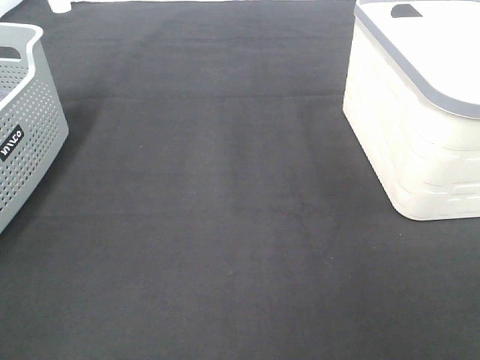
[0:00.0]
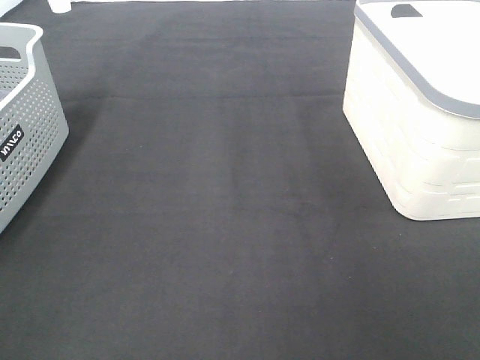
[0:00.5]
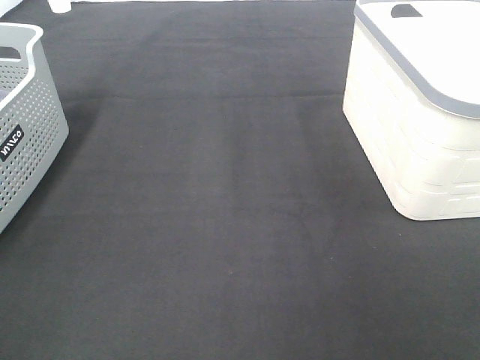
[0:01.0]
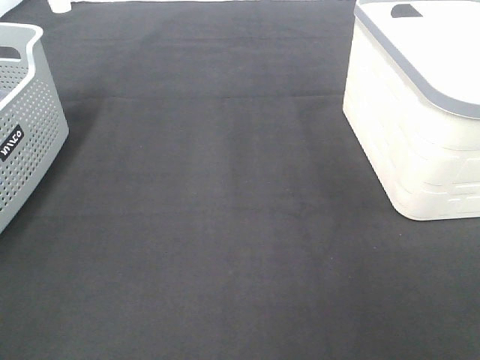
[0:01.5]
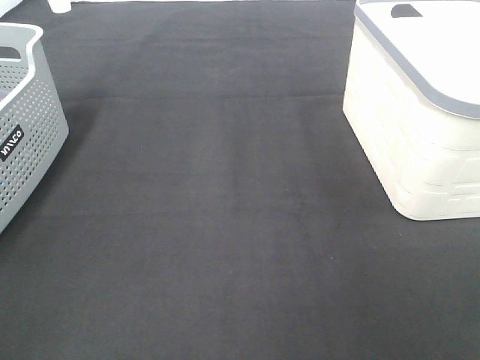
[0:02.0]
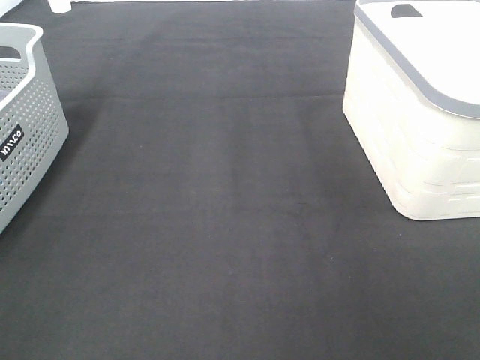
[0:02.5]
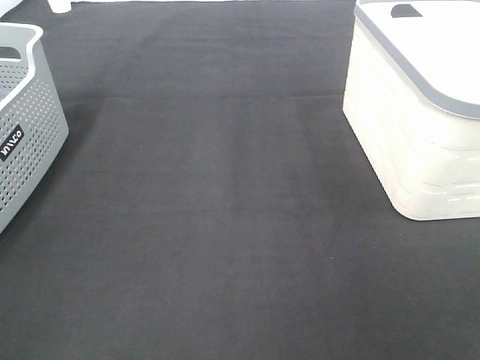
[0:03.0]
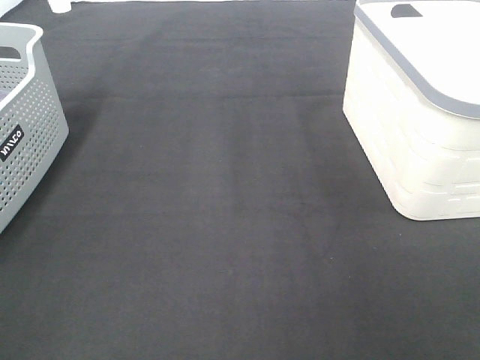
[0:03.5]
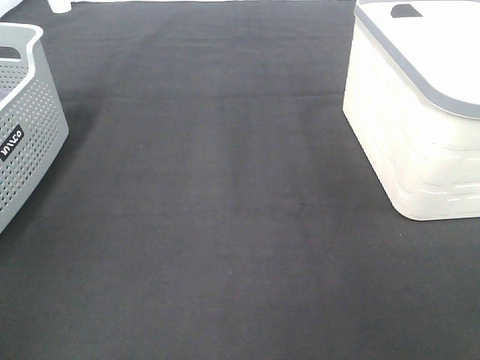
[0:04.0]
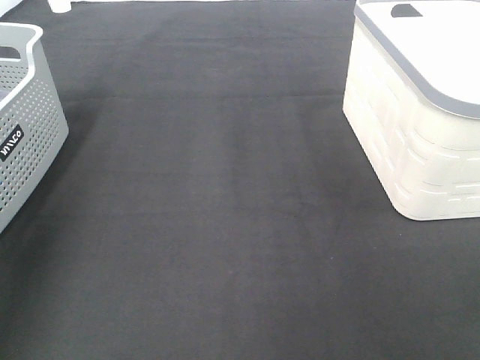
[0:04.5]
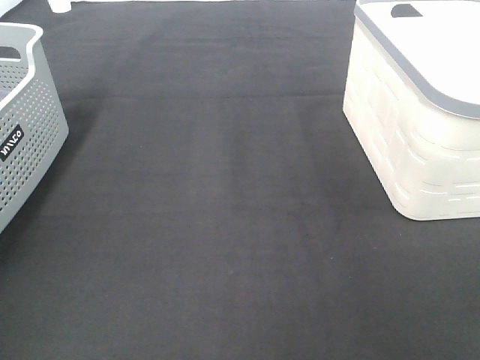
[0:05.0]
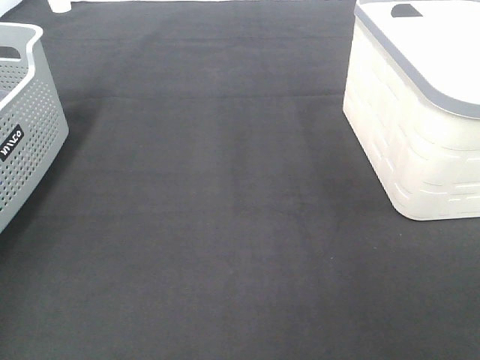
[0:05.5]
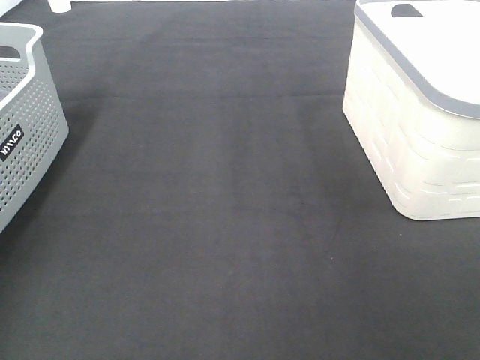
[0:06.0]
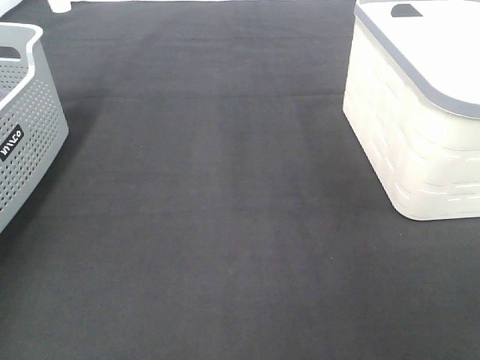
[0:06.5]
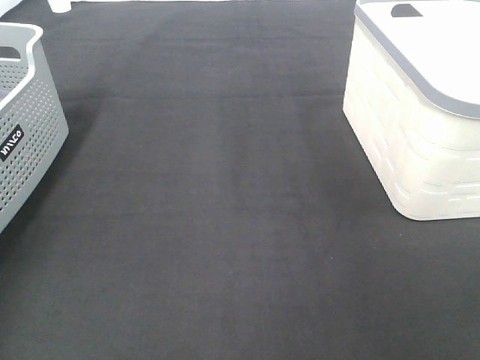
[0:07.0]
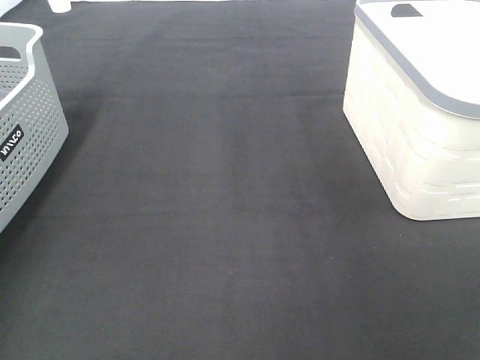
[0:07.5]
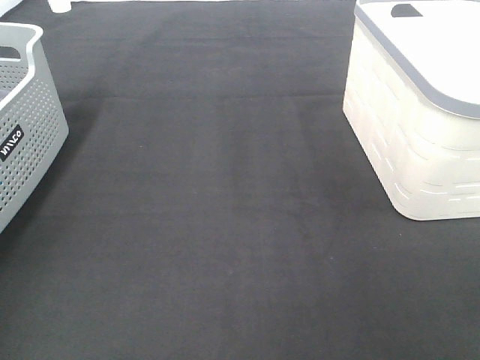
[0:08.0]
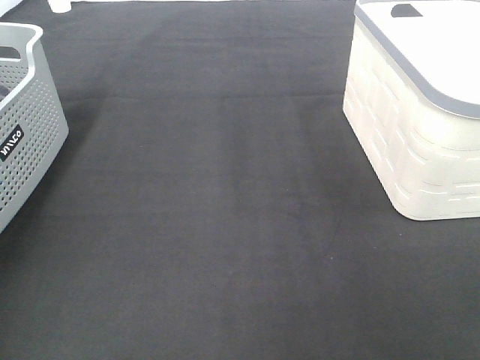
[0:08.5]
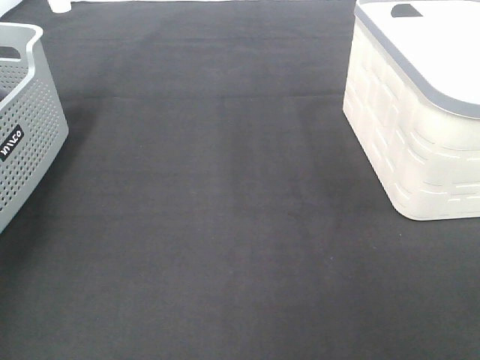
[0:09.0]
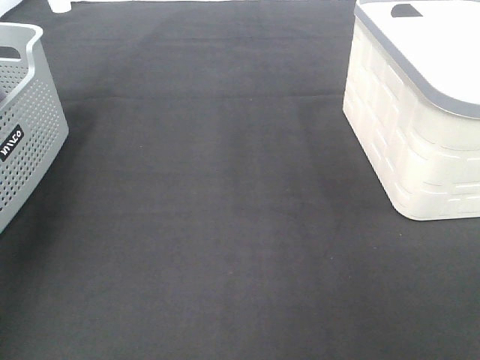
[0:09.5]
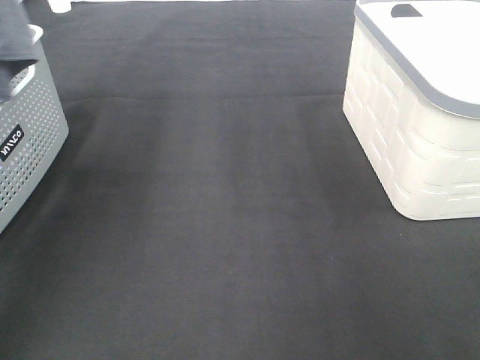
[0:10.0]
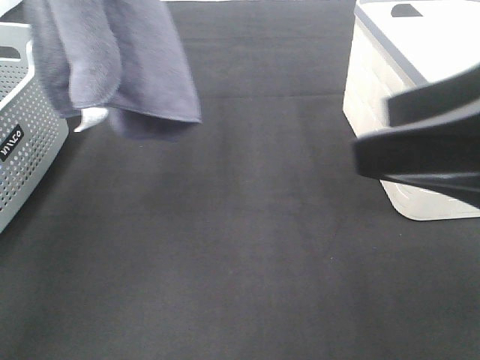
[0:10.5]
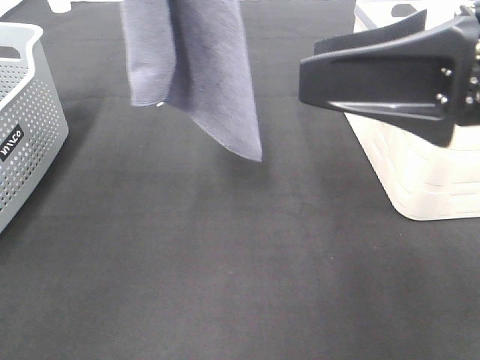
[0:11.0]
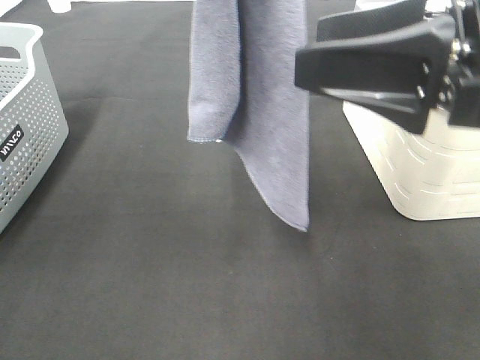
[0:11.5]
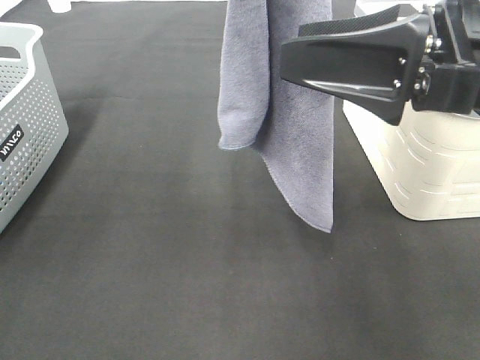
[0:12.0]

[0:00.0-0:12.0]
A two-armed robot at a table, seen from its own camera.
Task of the whole recording: Remove the towel and place it.
0:00.0 to 0:02.0: Both grippers stay put.
0:08.0 to 0:10.0: The left gripper heads upward, to the right and backward, covering roughly 30 cm.
0:10.0 to 0:12.0: The right gripper goes roughly 20 cm forward and to the left. The left gripper goes about 20 cm to the right.

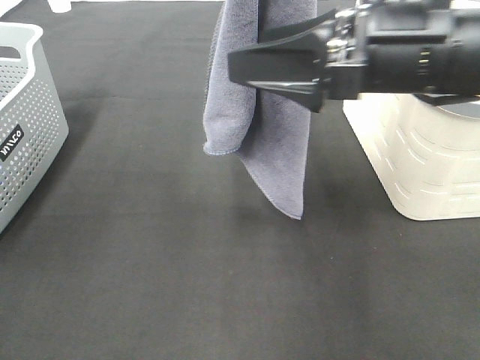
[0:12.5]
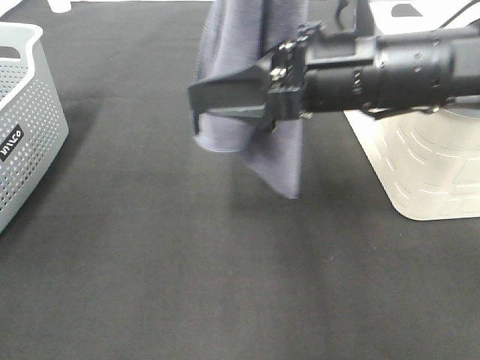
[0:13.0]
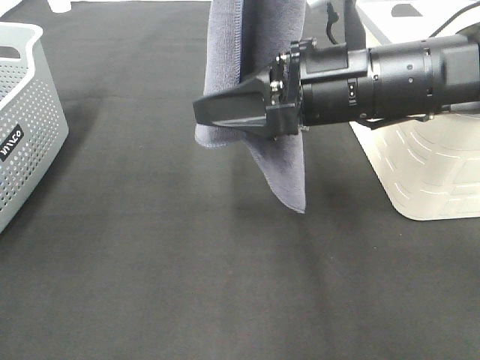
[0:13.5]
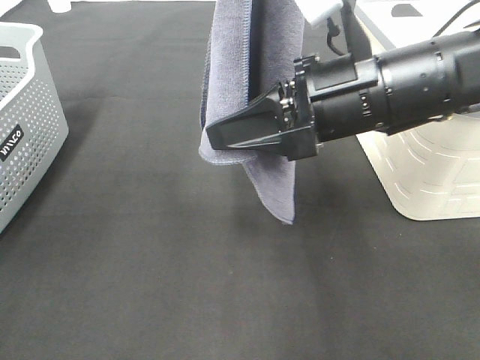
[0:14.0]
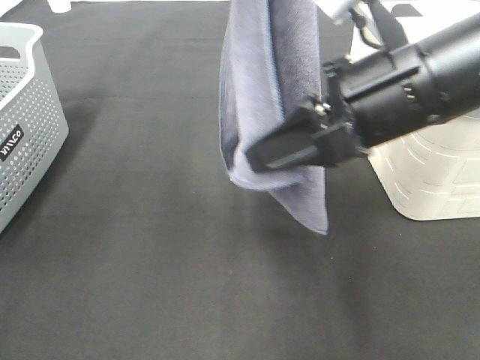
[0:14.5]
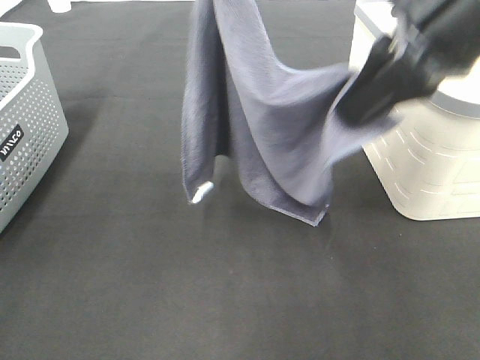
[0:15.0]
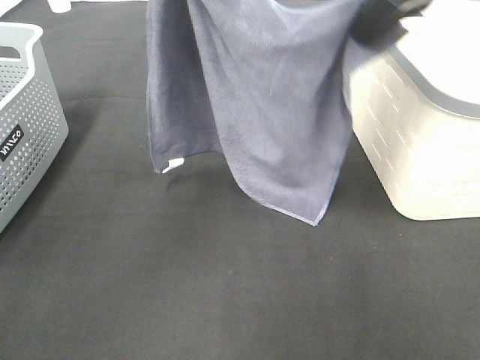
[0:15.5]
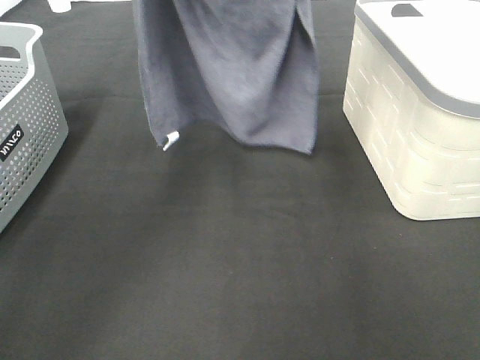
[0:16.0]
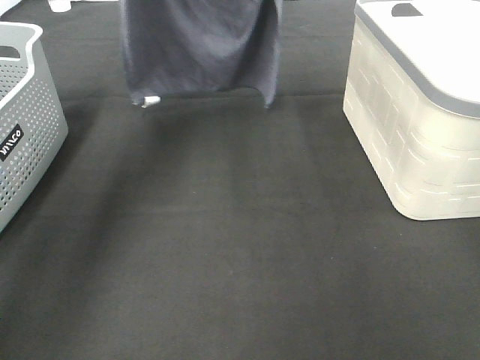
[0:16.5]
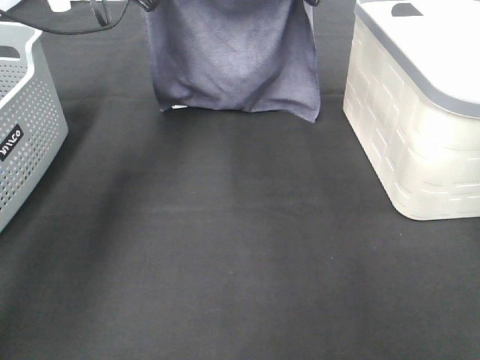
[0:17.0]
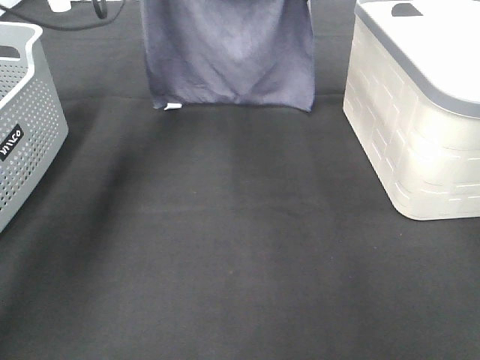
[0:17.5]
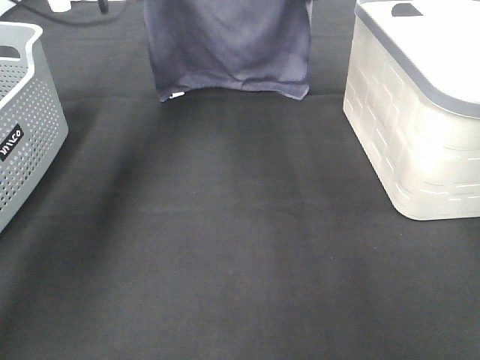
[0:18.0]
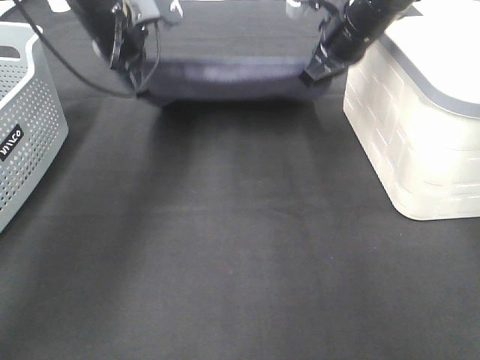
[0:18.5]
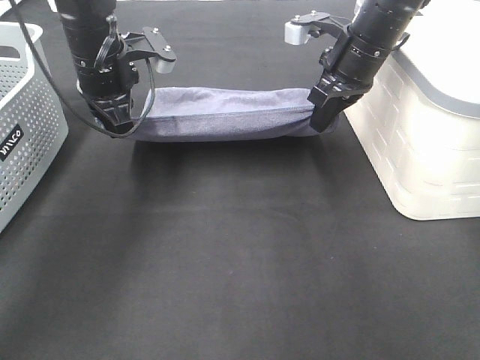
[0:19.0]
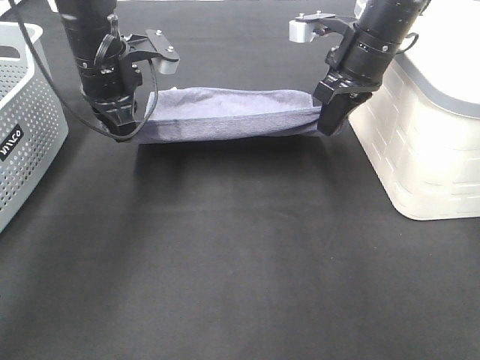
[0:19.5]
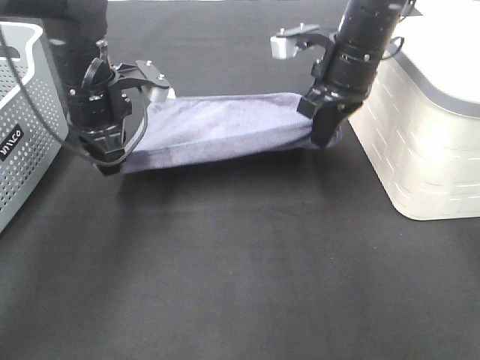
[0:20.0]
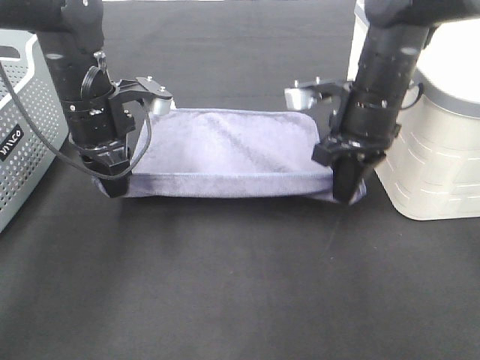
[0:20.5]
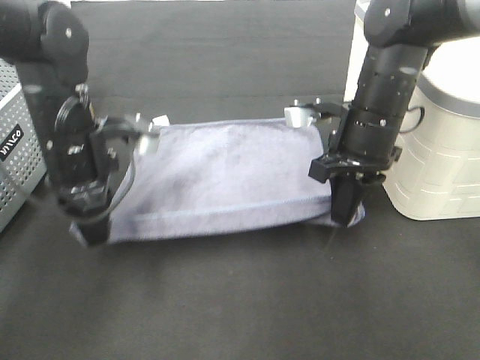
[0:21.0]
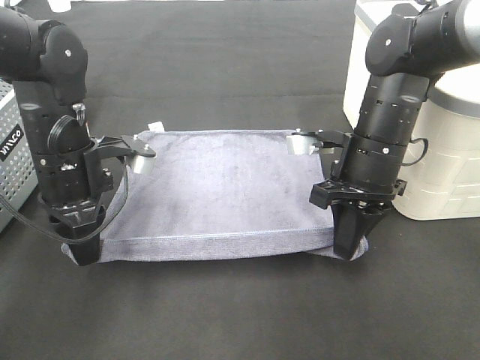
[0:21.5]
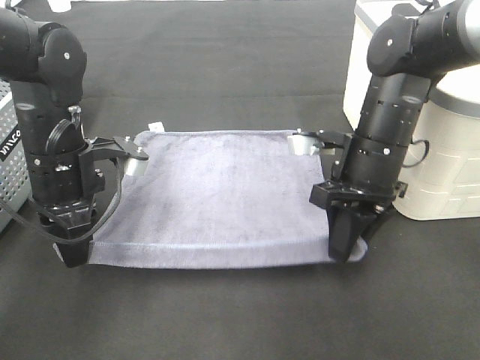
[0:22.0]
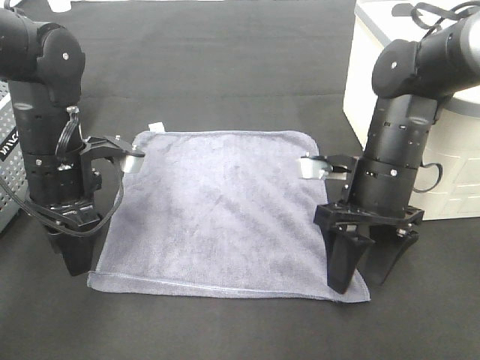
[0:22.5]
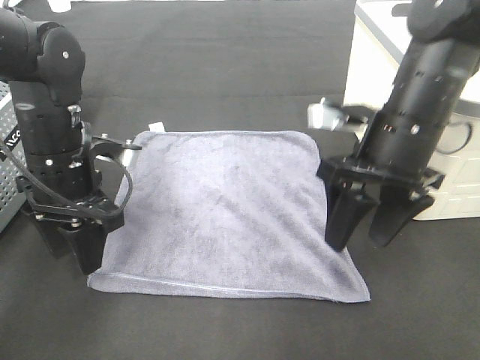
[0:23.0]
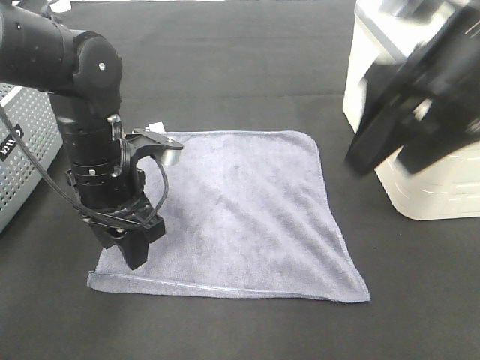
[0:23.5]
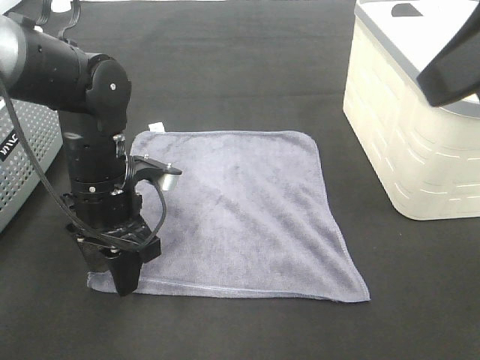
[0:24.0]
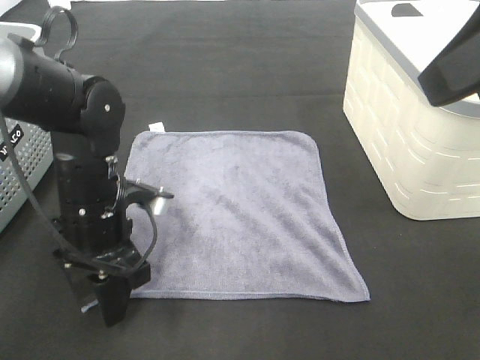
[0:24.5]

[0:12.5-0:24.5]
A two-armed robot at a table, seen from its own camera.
Task of the whole recording: Remove the towel and place it.
Step, 0:13.0 to 0:17.5: Left hand: spread the grey towel flat on the table.
Step, 0:13.0 to 0:17.5: Right hand: spread the grey towel flat on the table.
Step, 0:18.0 to 0:20.0: Left hand:adjust the gray towel.
0:12.5 to 0:14.5: The right gripper closes.
0:14.5 to 0:16.5: The right gripper is displaced forward by approximately 25 cm, while the left gripper is displaced forward, downward and to the left by some 20 cm.
0:16.5 to 0:18.5: Both grippers move downward, roughly 10 cm.
0:18.5 to 0:20.5: Both grippers move backward, about 10 cm.
0:20.5 to 0:22.5: The two grippers go roughly 5 cm backward. The right gripper opens. The left gripper opens up.
0:22.5 to 0:24.5: The right gripper shifts roughly 30 cm upward and backward. The left gripper ends up roughly 5 cm from where it was.

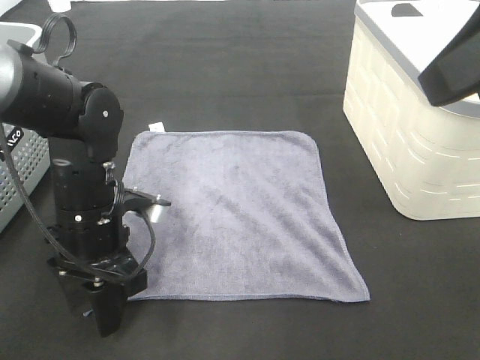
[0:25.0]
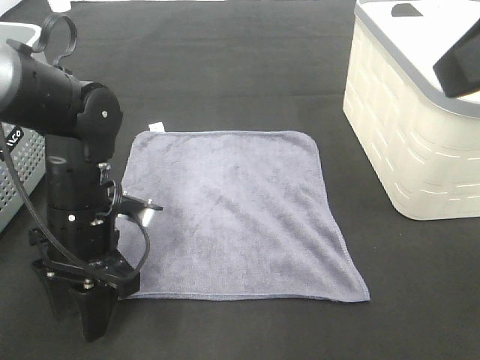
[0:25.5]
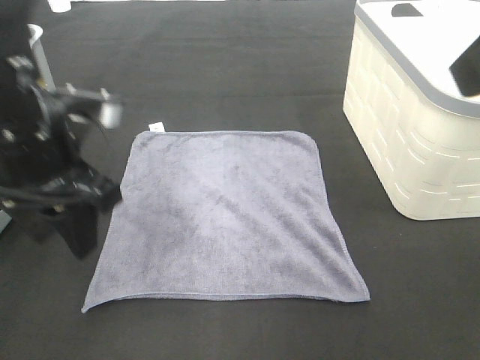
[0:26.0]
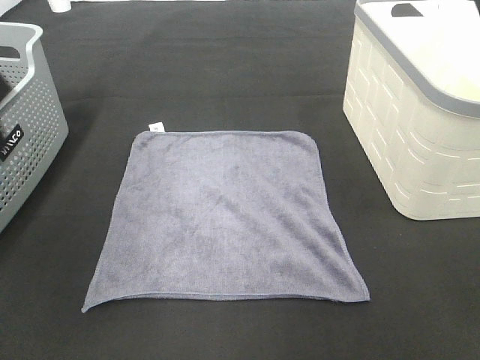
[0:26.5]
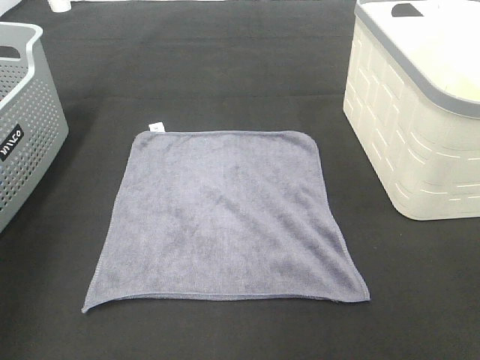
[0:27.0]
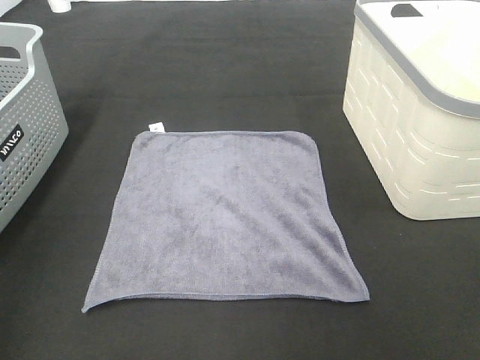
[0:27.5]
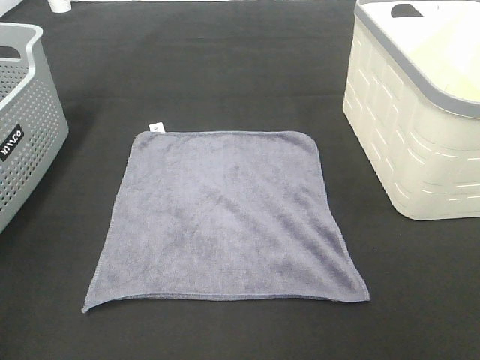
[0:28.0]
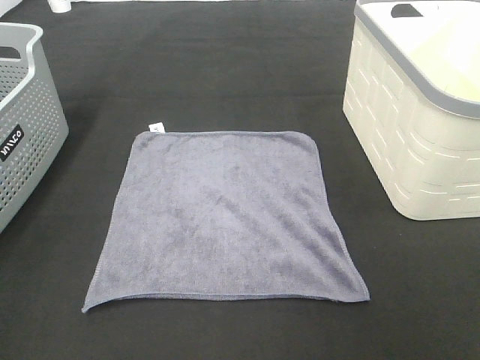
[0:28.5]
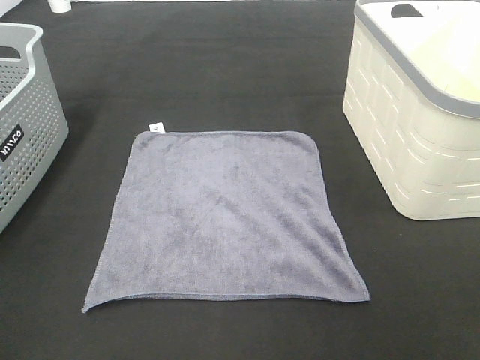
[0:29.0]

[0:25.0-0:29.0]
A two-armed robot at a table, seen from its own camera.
Task of the whole recording: Remove the towel and place it.
0:25.0 to 0:27.0: The right gripper changes place by approximately 5 cm; the left gripper goes approximately 35 cm upward and to the left.
